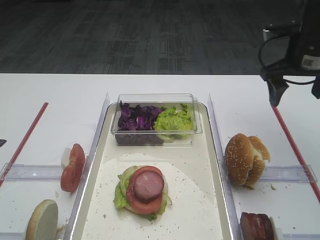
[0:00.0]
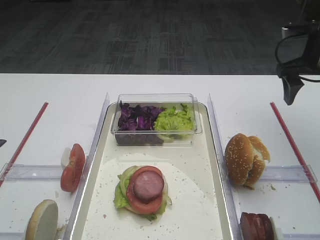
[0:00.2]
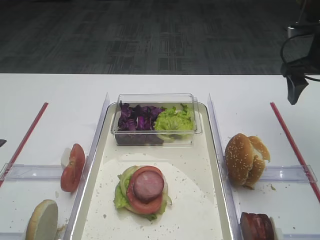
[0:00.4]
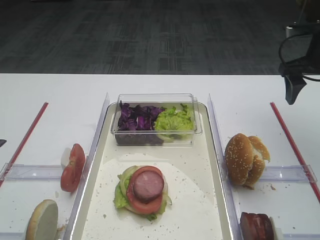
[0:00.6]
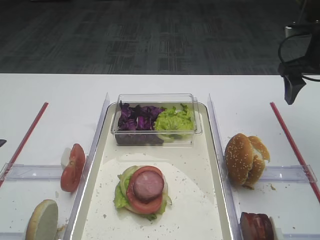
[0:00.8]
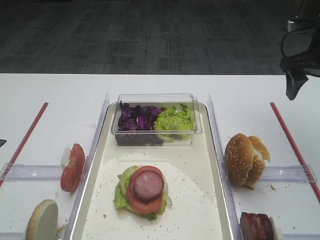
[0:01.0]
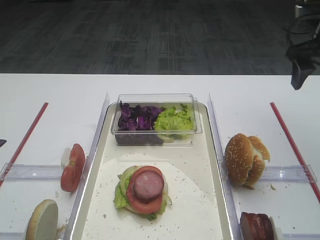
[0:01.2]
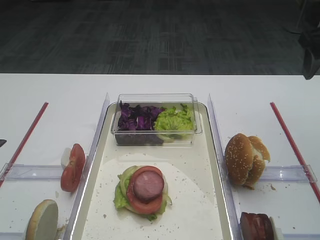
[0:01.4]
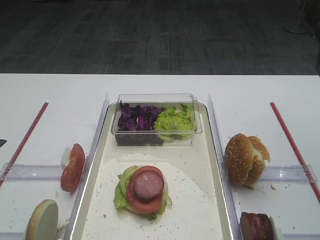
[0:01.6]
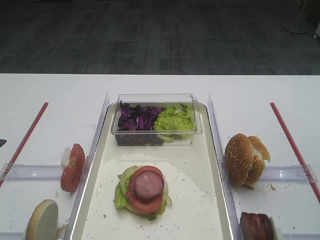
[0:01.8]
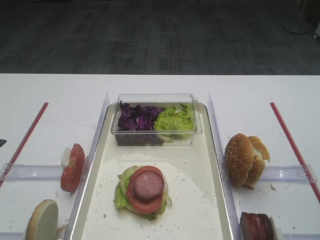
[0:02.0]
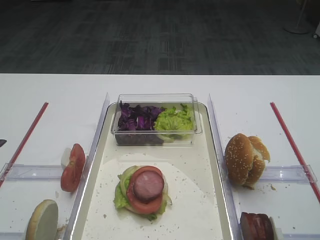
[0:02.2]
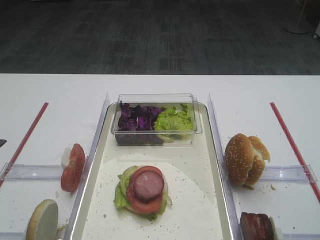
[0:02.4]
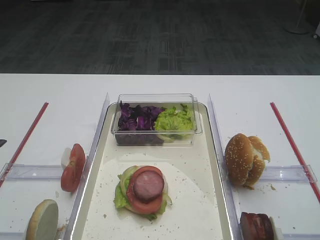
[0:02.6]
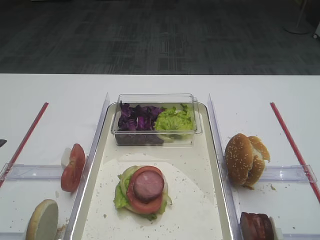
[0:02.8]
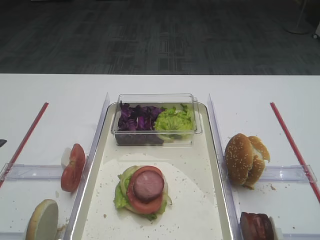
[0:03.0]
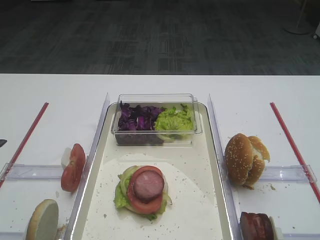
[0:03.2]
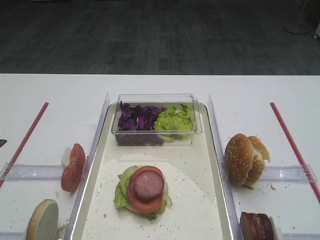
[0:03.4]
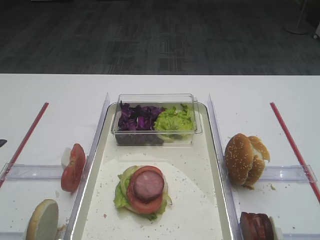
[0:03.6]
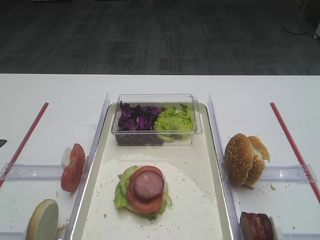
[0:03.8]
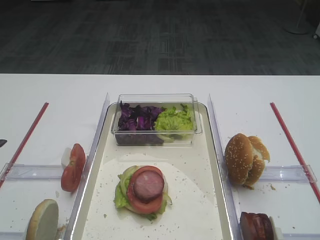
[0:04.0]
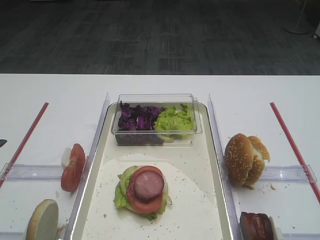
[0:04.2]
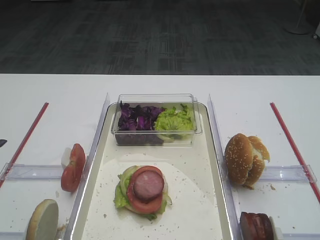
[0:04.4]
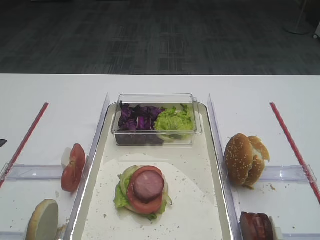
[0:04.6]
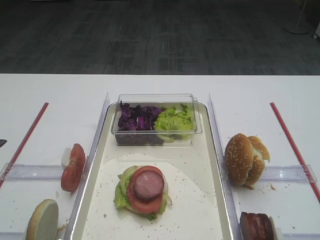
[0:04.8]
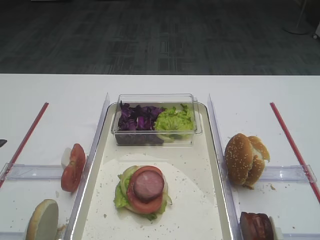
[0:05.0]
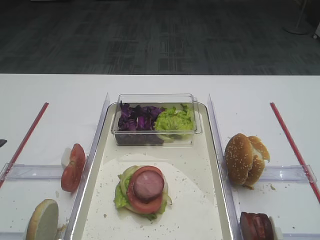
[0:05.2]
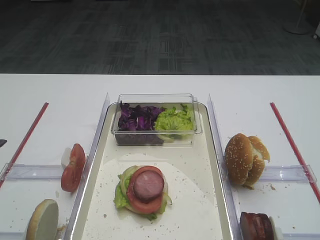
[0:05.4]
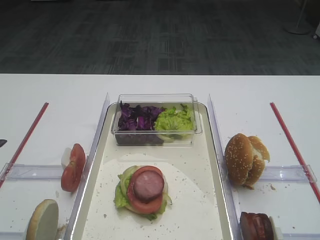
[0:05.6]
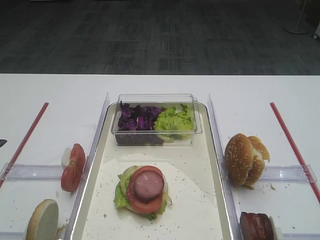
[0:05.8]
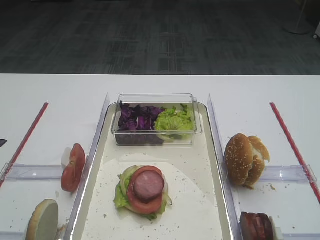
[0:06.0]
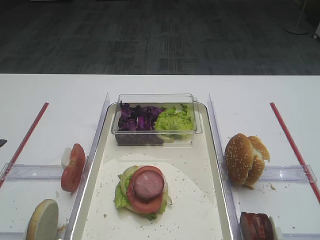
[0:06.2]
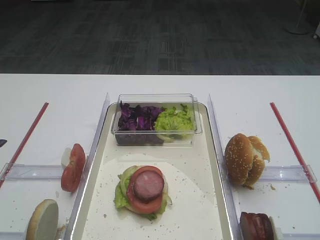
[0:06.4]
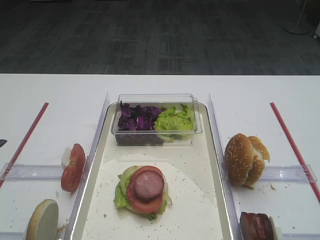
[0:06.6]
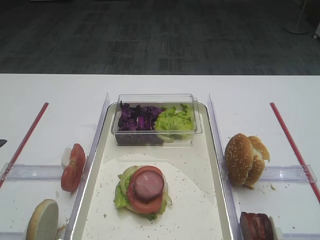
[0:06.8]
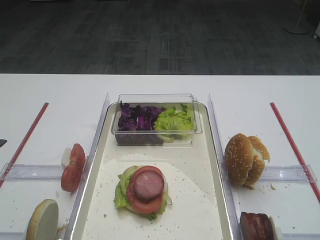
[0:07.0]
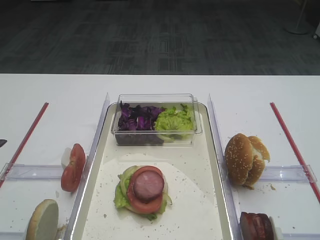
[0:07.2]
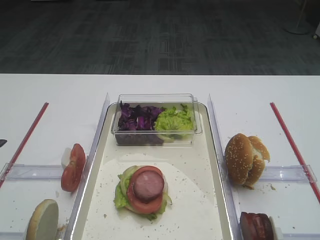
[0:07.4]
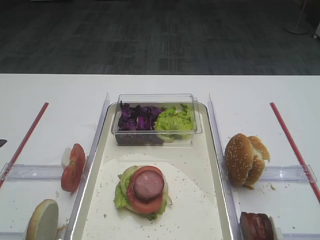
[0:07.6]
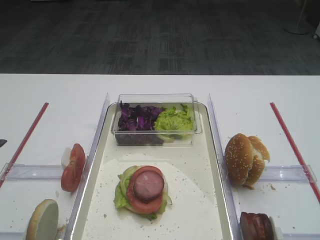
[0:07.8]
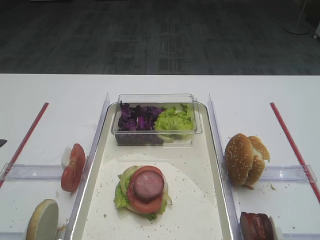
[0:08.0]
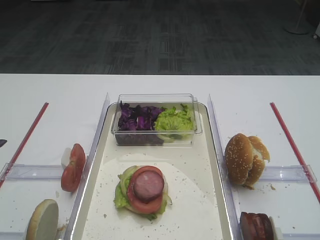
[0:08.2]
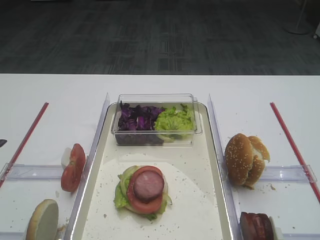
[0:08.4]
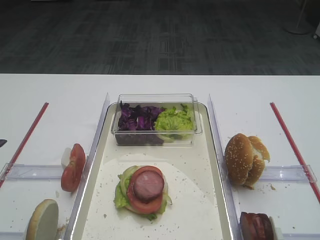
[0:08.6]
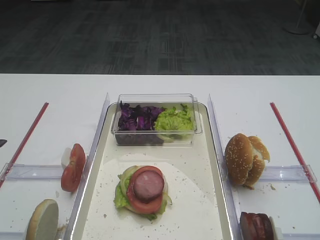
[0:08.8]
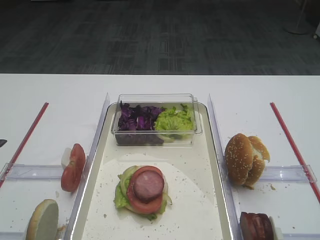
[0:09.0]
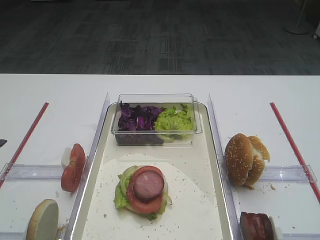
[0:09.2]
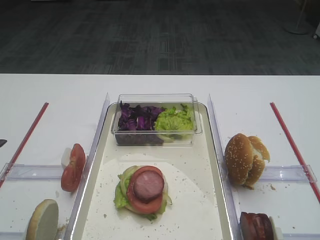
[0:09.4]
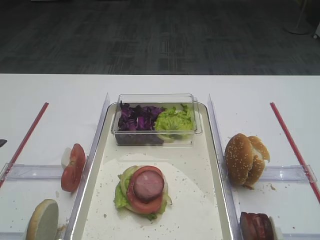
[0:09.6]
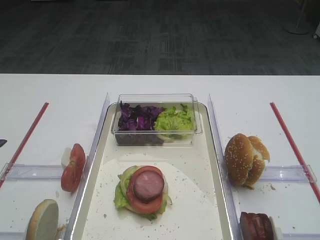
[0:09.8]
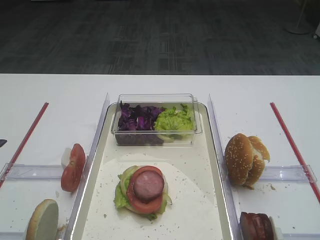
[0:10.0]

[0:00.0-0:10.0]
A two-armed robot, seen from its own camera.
0:00.0 to 0:01.4: The right gripper is displaced upward by roughly 5 cm.
0:01.4 to 0:02.8: The right gripper shifts some 30 cm backward.
0:04.2 to 0:10.0: The two grippers keep their place.

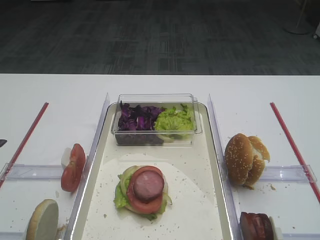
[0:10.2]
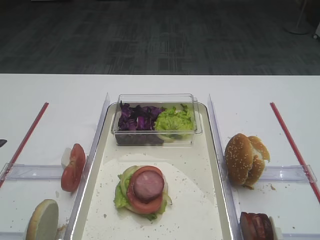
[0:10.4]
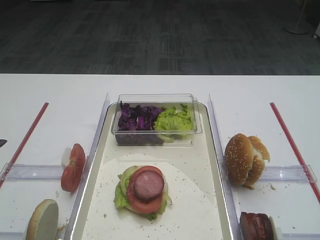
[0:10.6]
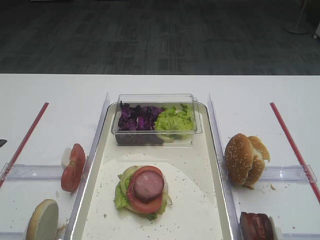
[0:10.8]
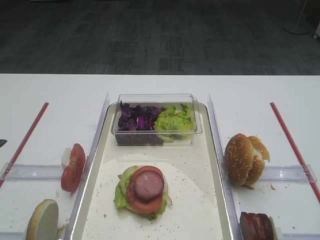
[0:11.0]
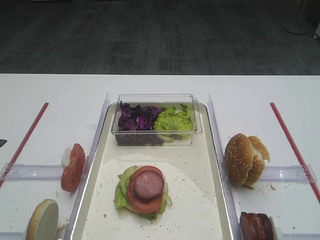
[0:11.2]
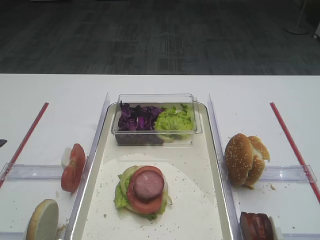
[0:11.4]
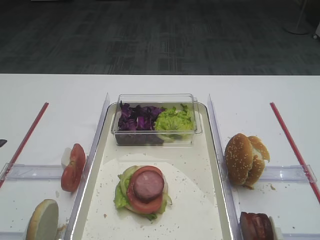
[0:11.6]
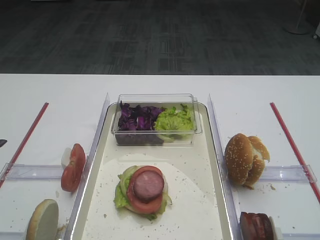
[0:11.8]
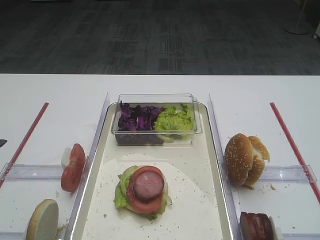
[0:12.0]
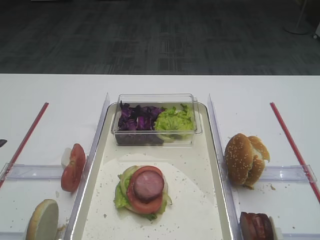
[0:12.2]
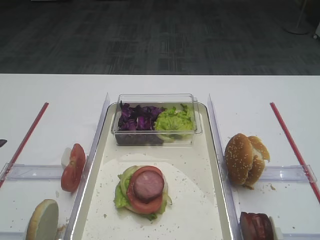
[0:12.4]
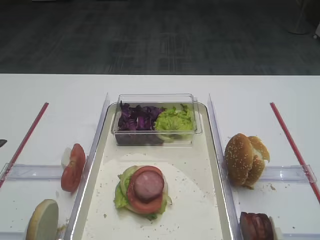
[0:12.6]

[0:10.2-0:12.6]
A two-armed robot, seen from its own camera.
0:10.2 to 0:12.6: The two grippers keep their place.

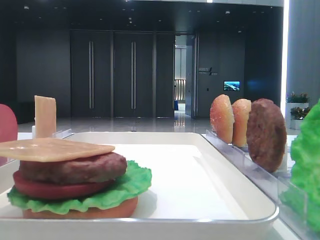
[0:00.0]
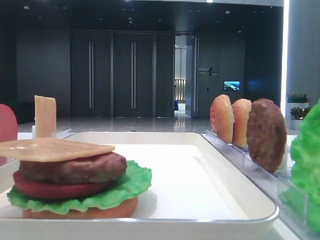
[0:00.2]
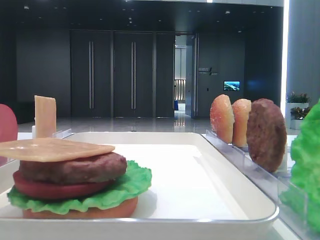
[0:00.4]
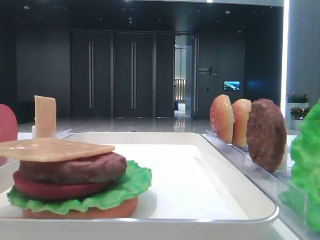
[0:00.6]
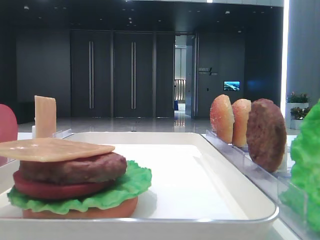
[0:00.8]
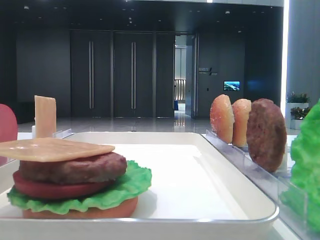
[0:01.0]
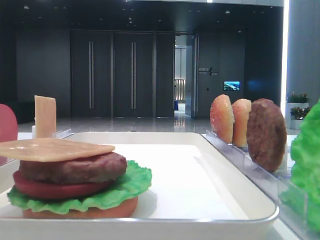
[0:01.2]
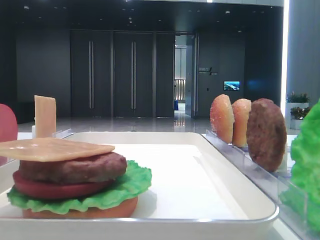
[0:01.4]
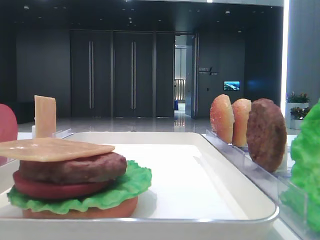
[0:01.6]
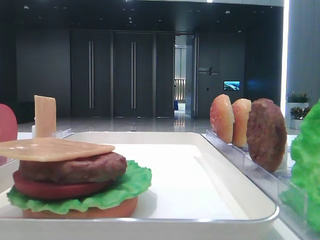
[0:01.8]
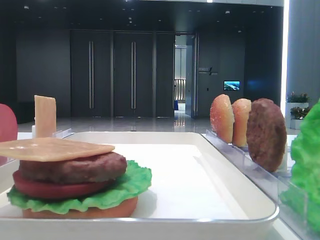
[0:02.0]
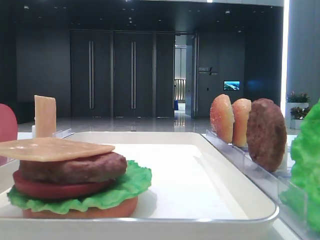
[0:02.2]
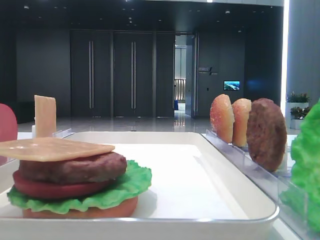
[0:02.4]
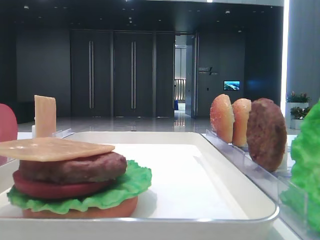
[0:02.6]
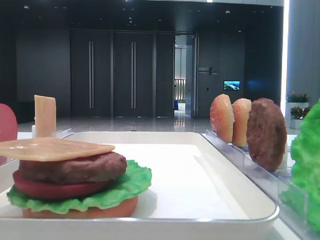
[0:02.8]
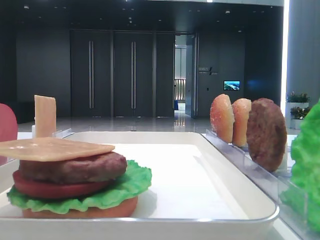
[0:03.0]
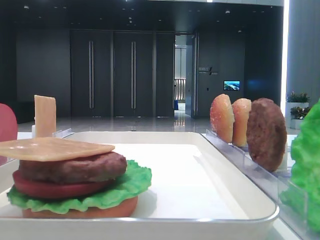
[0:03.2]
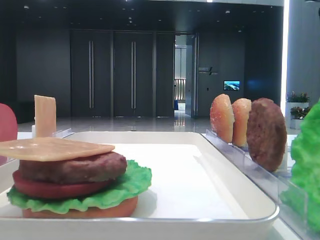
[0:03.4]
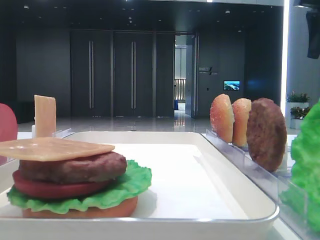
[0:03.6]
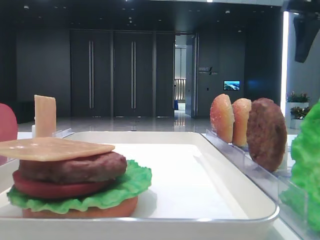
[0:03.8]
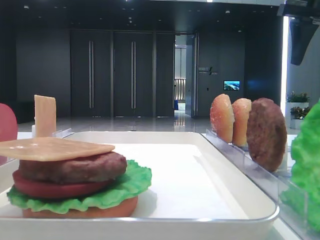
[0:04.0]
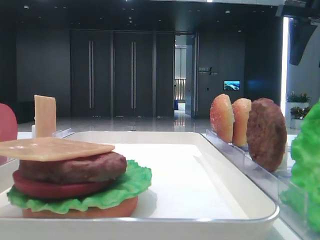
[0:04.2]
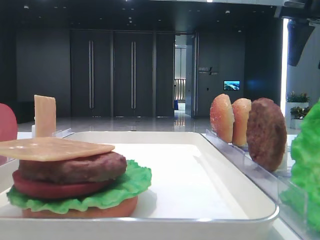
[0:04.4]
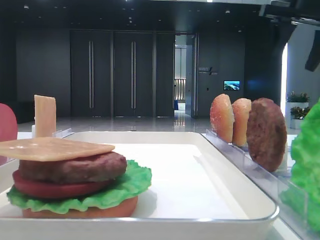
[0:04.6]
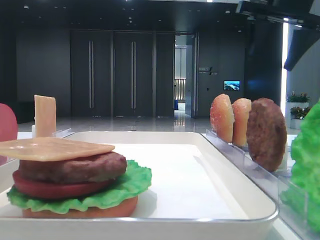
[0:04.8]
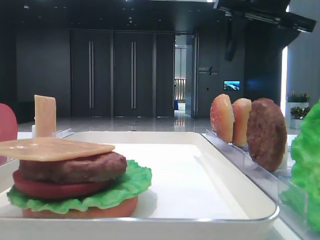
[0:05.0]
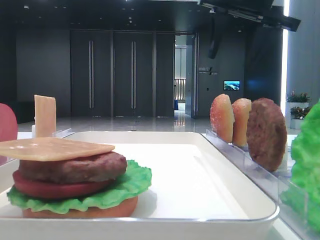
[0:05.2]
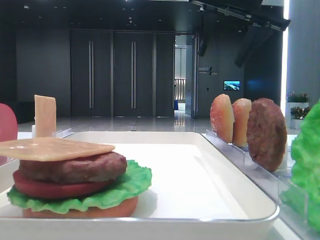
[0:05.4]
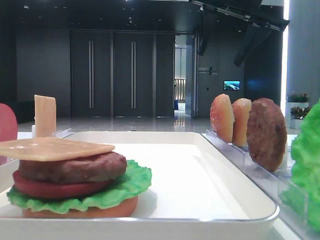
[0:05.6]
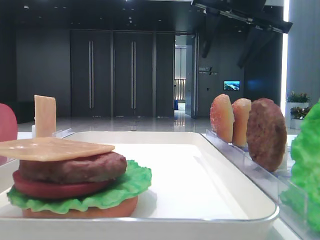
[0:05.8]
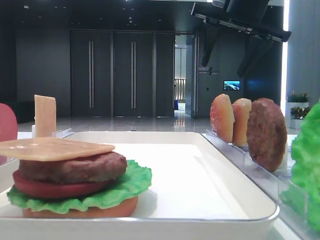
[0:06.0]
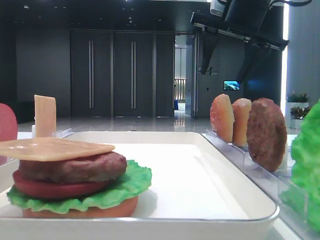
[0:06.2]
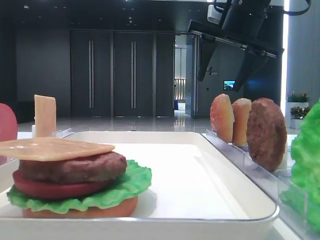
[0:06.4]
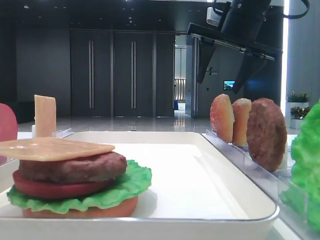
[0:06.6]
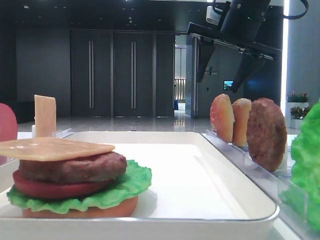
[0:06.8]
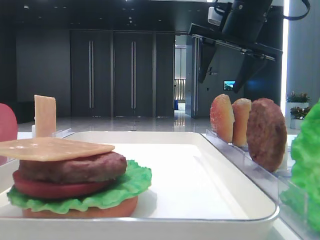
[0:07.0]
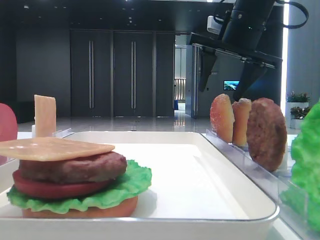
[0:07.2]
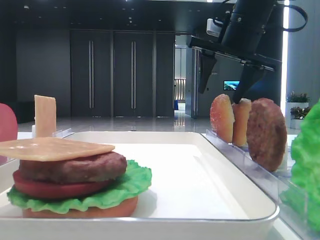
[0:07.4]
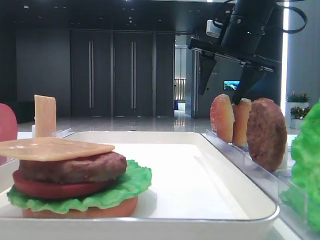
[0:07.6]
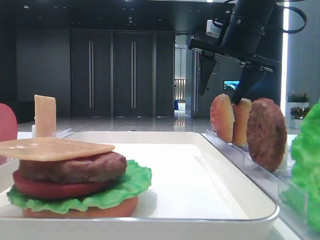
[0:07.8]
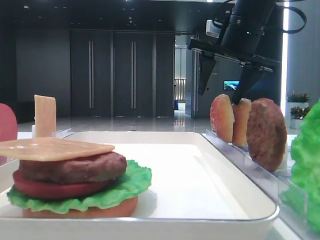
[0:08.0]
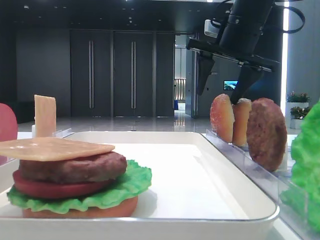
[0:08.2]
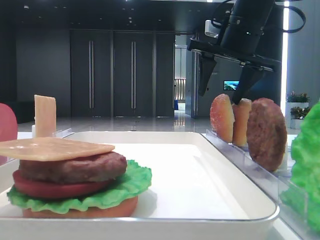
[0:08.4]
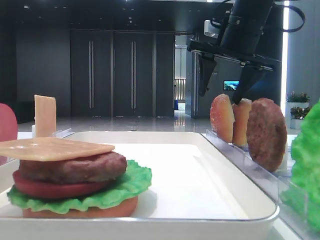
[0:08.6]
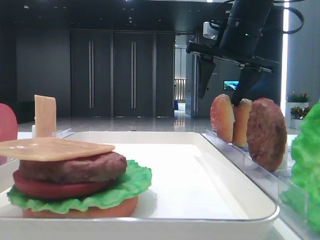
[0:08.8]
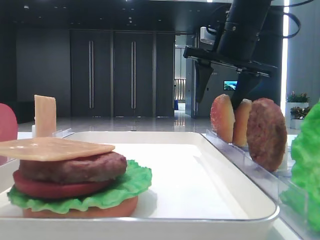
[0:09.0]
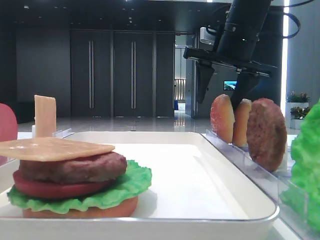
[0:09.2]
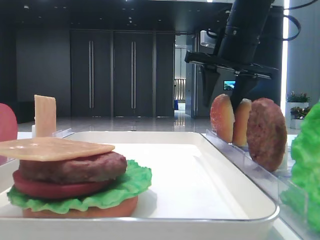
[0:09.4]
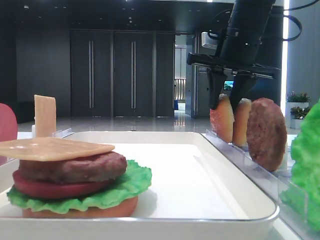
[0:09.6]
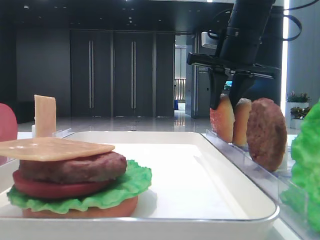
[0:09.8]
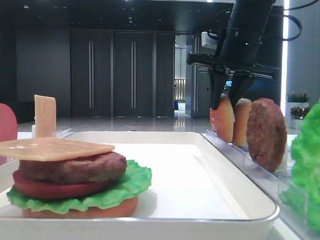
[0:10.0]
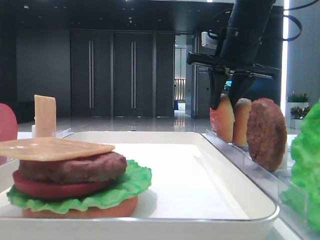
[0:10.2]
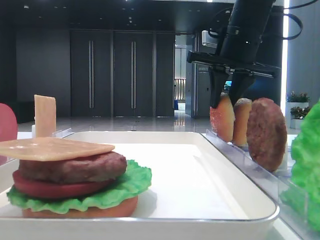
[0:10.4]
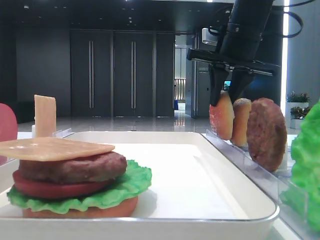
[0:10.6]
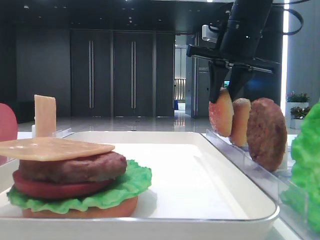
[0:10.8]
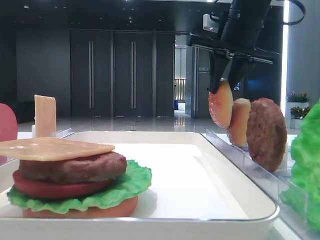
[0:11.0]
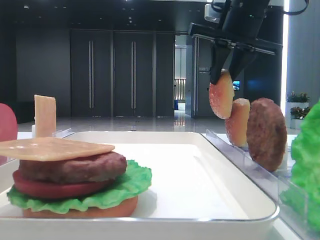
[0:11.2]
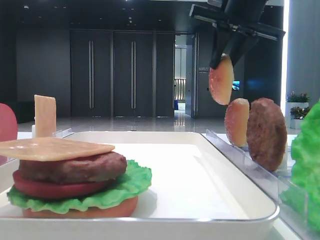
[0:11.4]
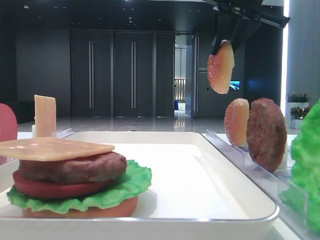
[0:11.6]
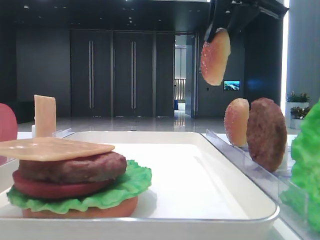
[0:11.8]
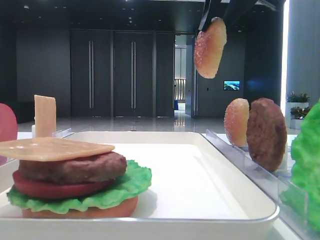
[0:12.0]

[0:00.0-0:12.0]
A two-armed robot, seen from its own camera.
Step, 0:00.0 to 0:09.6: Pick up the top bread slice with the right hand.
0:03.0 to 0:04.4: The right gripper heads forward, covering approximately 10 cm.
0:04.4 to 0:06.0: The right gripper is displaced to the left by some 15 cm.
0:06.0 to 0:07.6: The right gripper moves some 5 cm.
0:07.6 to 0:09.0: Both grippers stay about where they are.
0:09.0 to 0:10.4: The right gripper closes up.
0:10.4 to 0:12.0: The right gripper travels upward and backward by some 15 cm.
